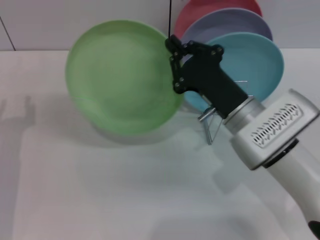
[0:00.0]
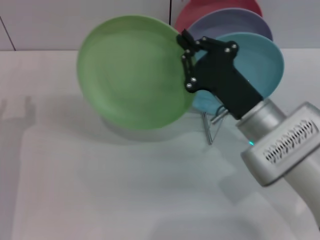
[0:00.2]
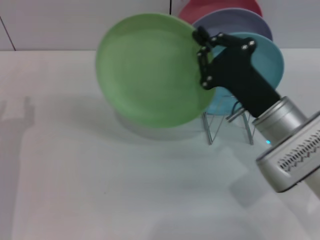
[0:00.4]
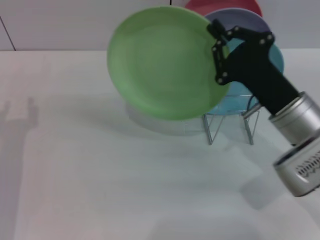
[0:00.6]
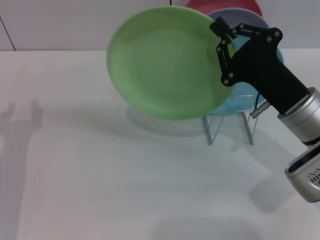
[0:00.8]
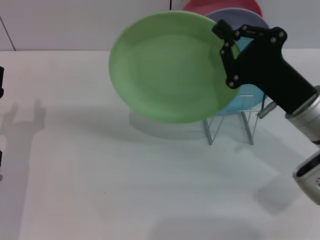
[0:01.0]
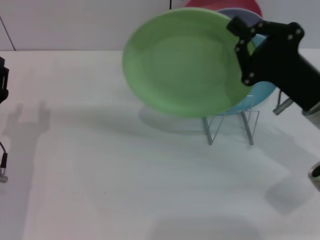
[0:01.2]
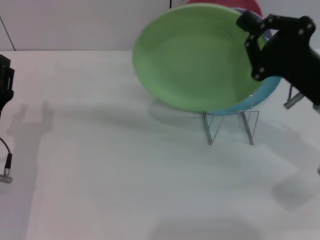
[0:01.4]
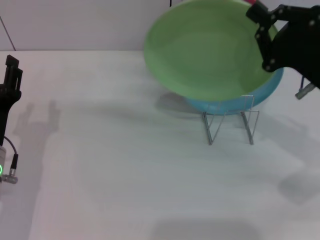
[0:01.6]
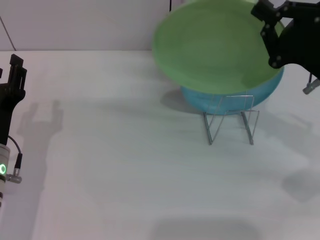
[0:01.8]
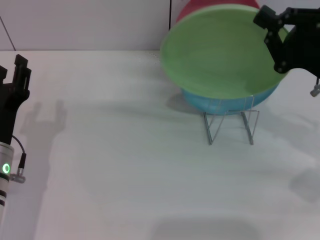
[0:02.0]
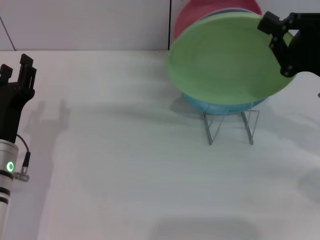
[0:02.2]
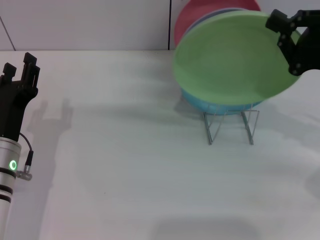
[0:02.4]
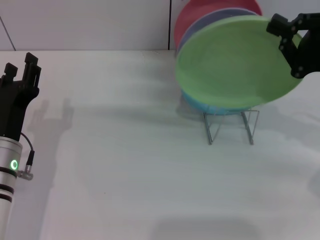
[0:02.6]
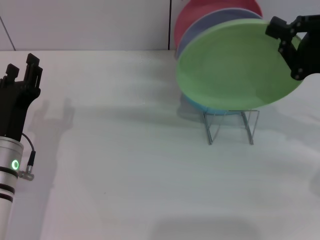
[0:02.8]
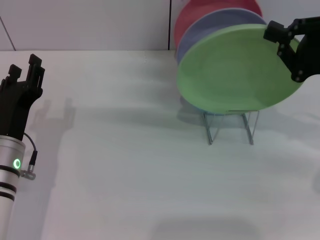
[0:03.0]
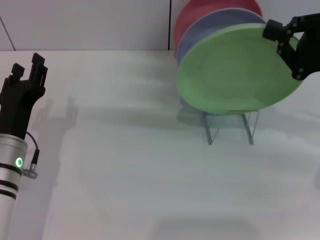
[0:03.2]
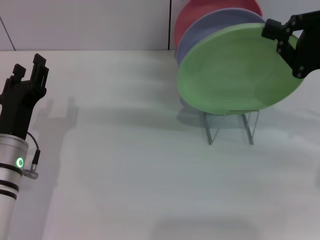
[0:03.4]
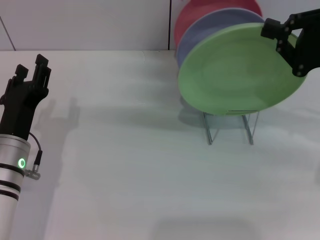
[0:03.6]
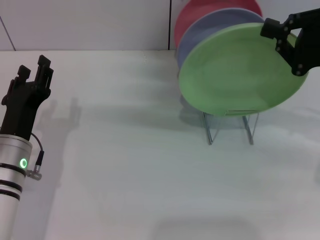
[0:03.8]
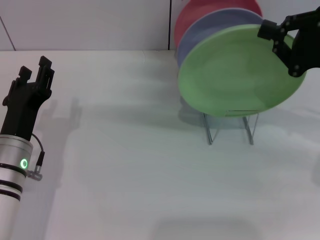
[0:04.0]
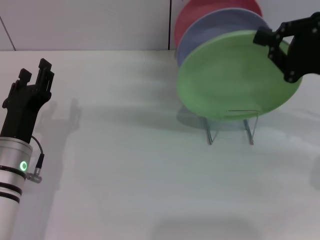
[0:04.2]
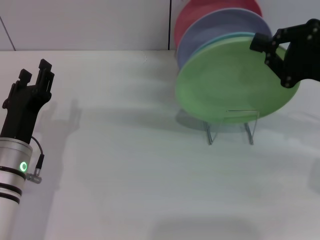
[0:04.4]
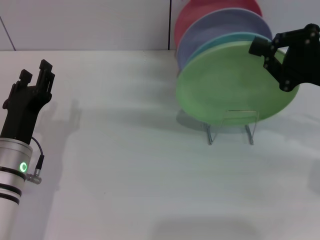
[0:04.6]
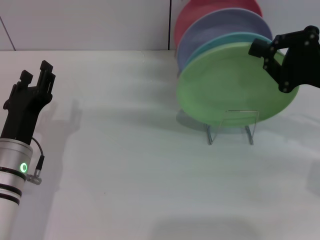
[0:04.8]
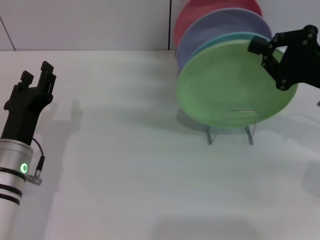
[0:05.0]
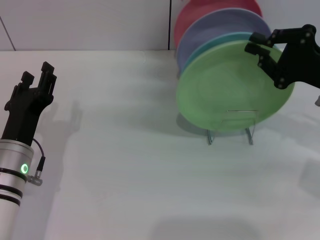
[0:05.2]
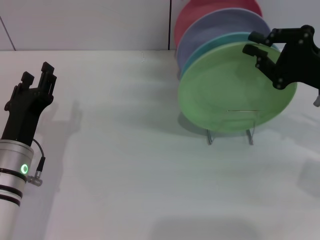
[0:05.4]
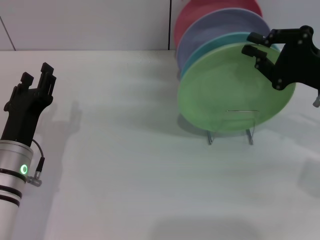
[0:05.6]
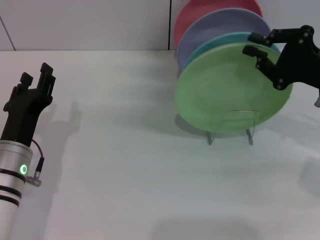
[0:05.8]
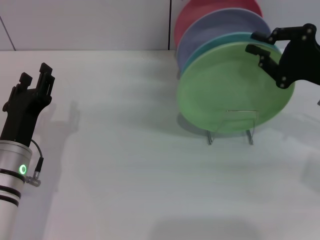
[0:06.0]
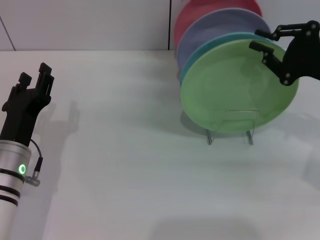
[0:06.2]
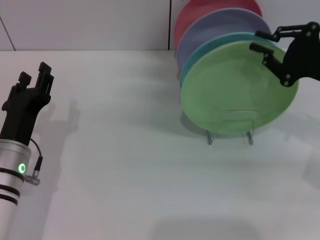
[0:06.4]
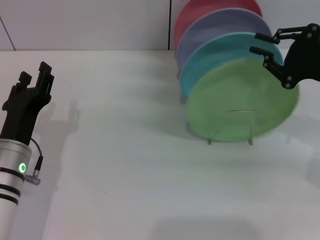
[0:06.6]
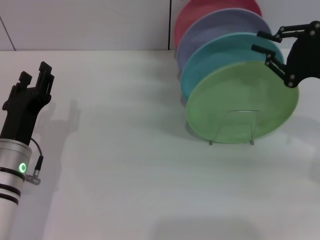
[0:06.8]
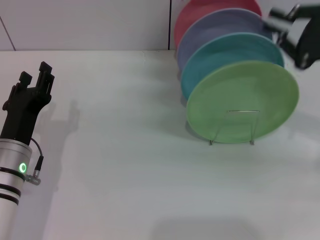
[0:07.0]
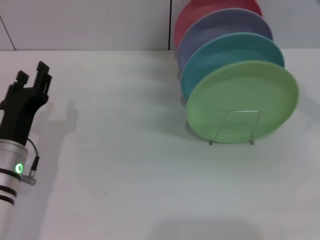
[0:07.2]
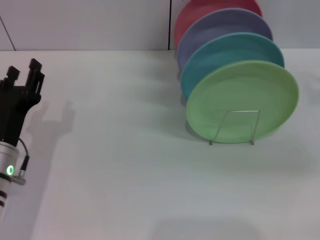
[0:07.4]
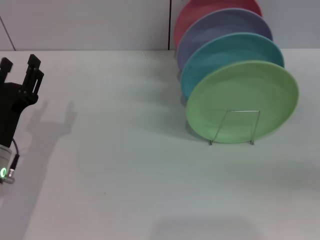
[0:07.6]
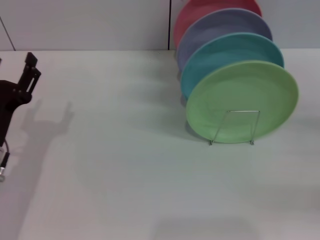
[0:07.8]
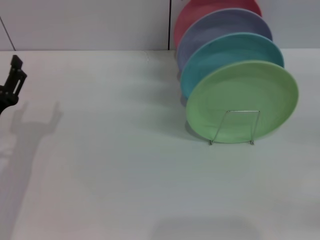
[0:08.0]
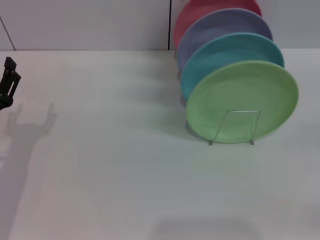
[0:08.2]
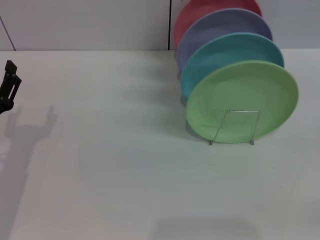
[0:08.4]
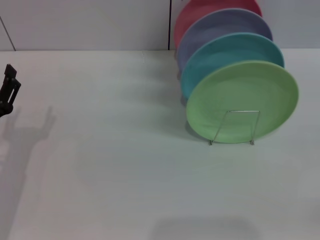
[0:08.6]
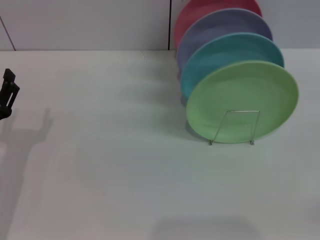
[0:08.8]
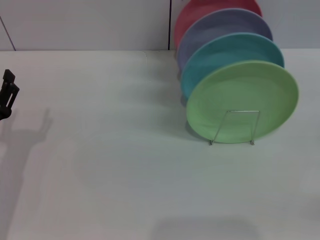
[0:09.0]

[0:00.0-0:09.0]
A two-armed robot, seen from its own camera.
Task of the whole recording: Grip the plate with one hand, pass it to the other, then set it on the shelf.
Step, 0:00.2 to 0:06.8: Place the plate on the shelf with the right gripper.
0:00.0 to 0:01.6: The right gripper shifts some 15 cm to the right and upward.
0:01.6 to 0:03.0: The right gripper ends up approximately 5 cm from where it was.
0:03.0 to 0:06.0: The grippers make only small movements.
0:06.0 to 0:07.6: The right gripper shifts approximately 10 cm to the right and backward.
0:07.6 to 0:09.0: The right gripper shifts about 10 cm downward, and opens.

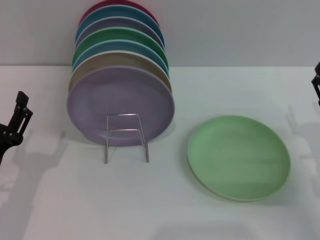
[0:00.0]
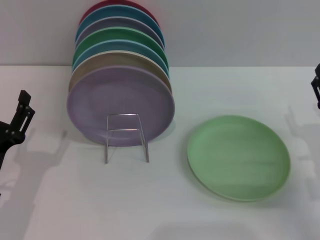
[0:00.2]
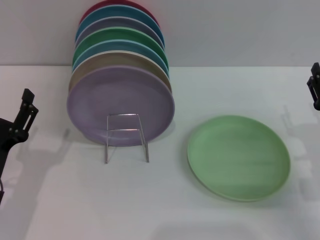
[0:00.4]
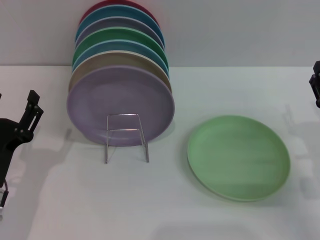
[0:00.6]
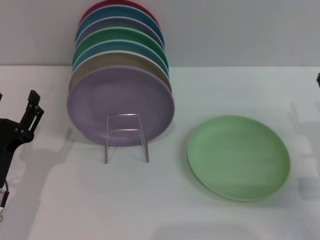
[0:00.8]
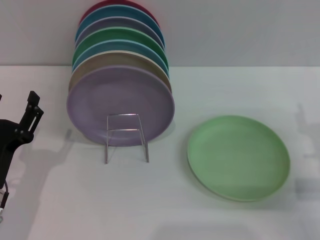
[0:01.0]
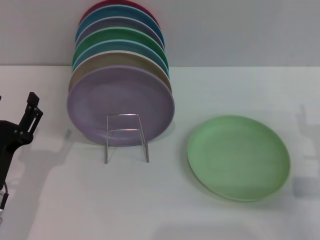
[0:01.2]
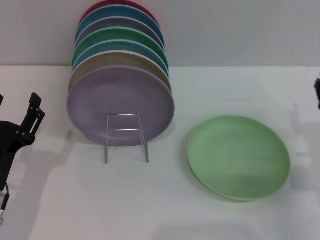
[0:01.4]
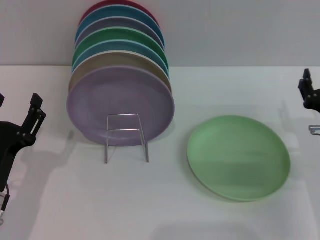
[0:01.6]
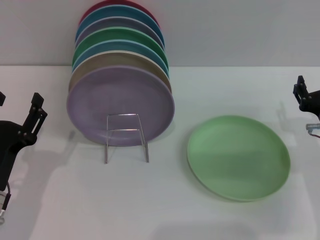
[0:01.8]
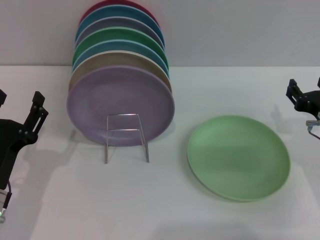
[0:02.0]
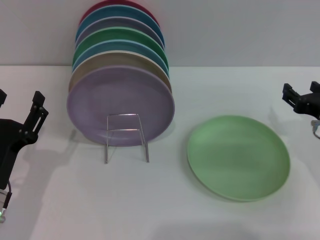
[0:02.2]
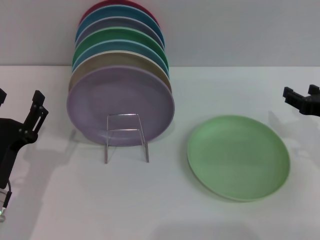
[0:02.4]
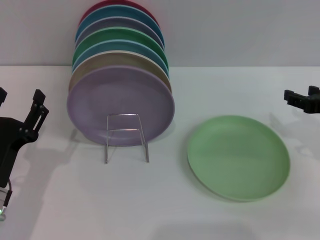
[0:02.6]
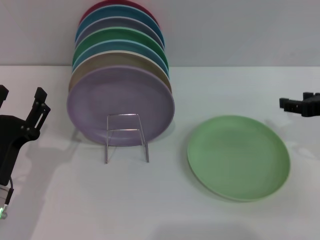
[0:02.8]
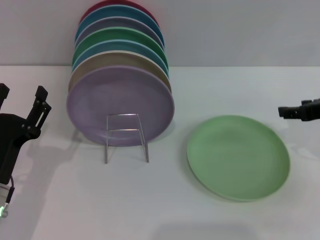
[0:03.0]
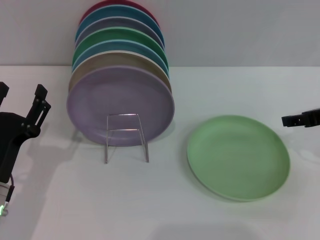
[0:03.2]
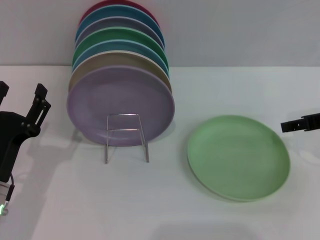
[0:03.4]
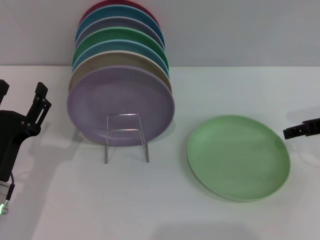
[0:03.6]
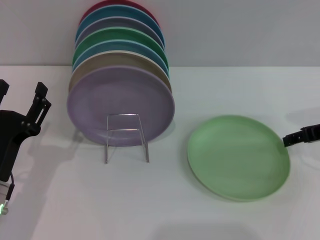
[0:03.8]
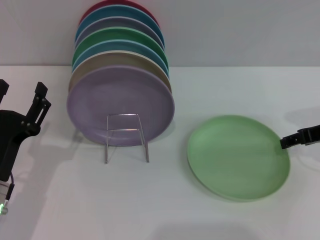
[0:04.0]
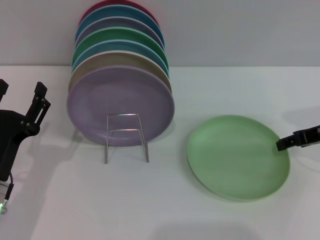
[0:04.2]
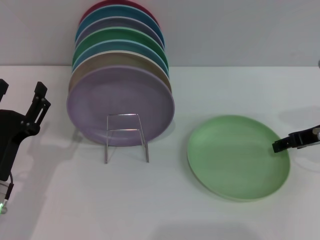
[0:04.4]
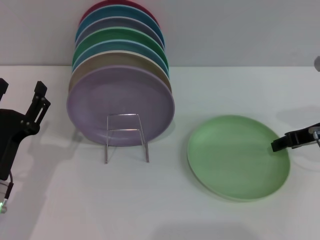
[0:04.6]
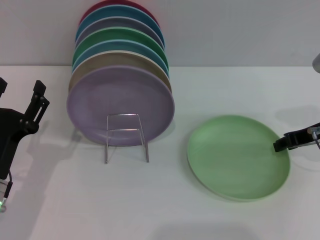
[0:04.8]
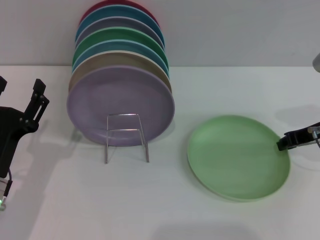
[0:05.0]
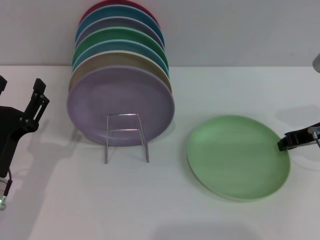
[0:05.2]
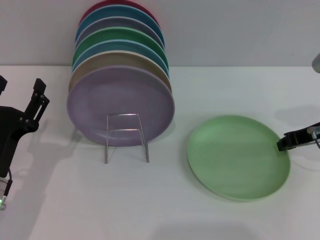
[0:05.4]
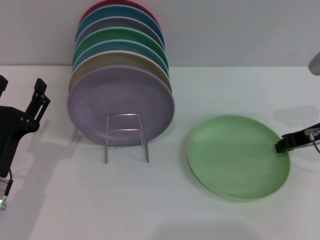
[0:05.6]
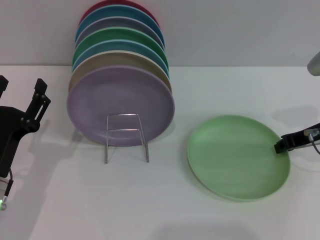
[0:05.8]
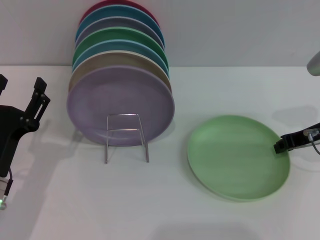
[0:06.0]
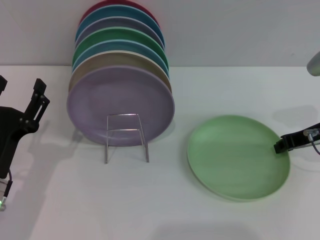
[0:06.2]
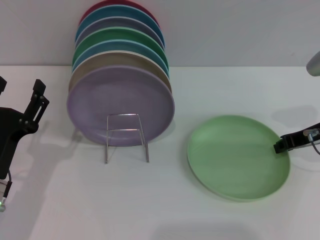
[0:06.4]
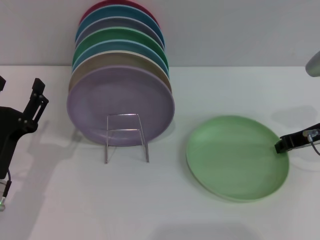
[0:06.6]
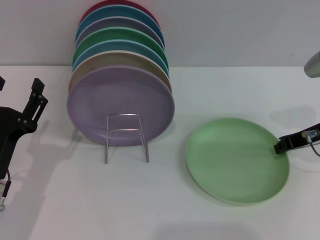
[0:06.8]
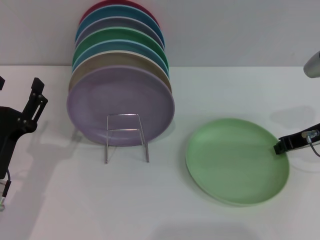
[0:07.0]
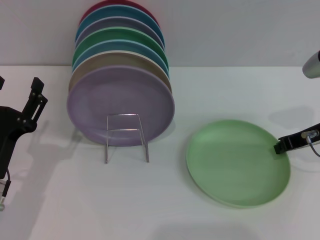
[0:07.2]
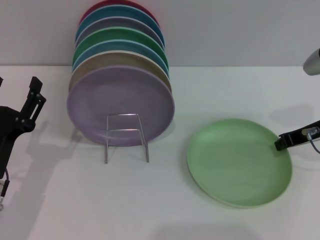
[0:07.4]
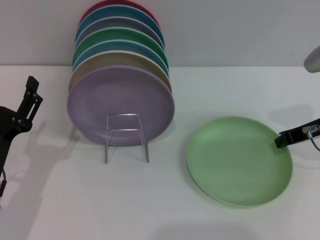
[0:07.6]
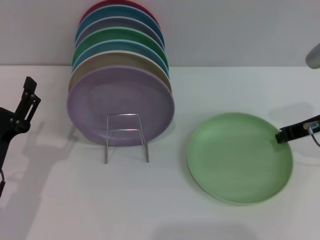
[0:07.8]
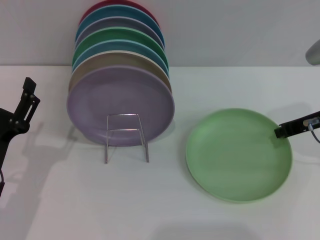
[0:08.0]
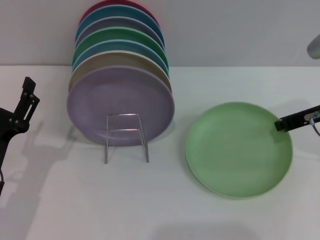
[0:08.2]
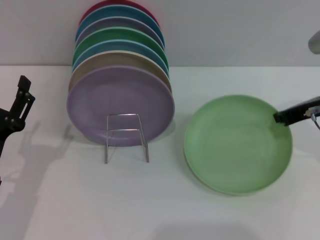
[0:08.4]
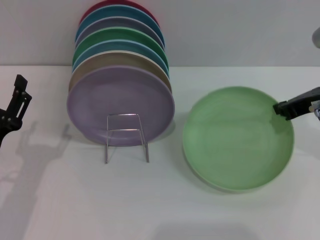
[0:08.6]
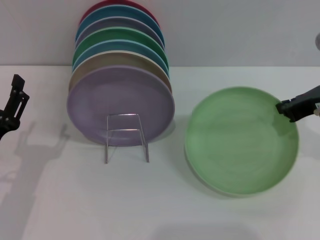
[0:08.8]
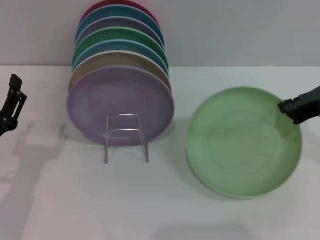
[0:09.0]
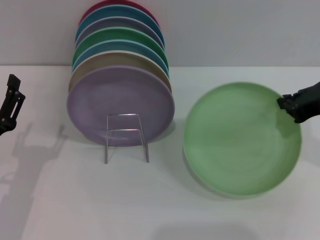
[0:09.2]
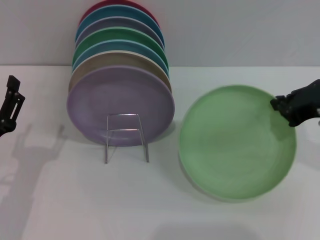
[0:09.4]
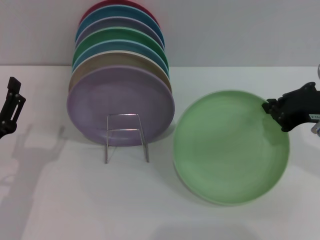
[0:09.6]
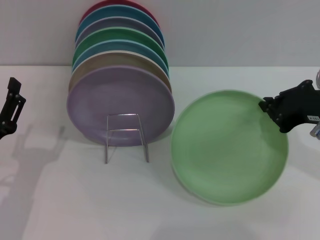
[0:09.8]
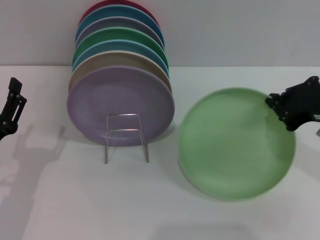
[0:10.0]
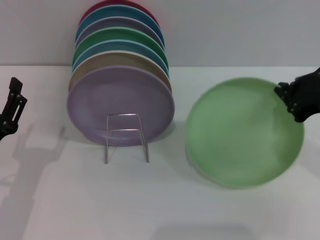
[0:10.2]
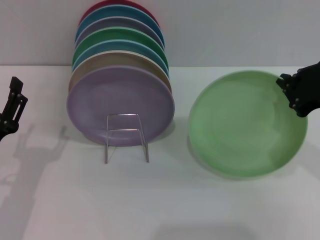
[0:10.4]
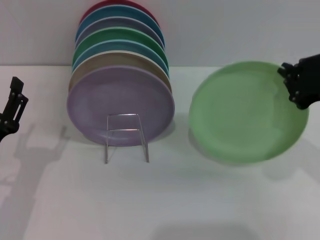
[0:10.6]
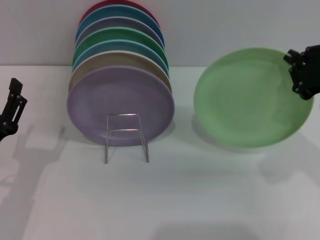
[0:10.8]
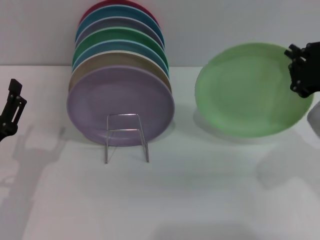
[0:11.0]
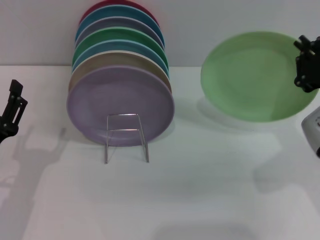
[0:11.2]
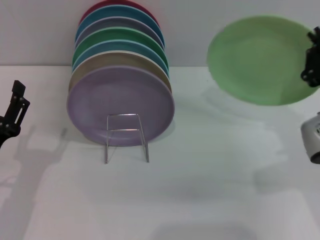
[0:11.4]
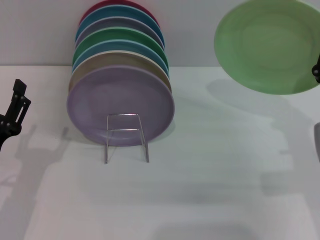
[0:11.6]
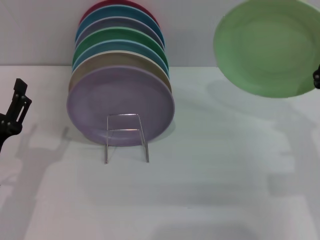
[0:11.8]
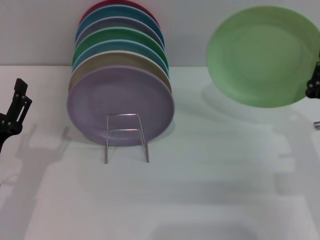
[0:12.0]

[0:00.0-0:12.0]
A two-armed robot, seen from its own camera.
Task of the whole recording: Grip the plate with one hand, pass it to the other, then set it on the shelf.
Step, 0:00.0 to 0:10.0: Pick up the plate with the right gripper.
0:01.6 to 0:03.0: The right gripper is displaced upward by approximately 10 cm.
0:04.4 to 0:06.0: The right gripper closes.
0:06.0 to 0:07.6: Both grippers stay about where they are.
0:07.6 to 0:09.0: The right gripper moves upward, about 5 cm.
0:10.4 to 0:12.0: The right gripper shifts approximately 10 cm downward.

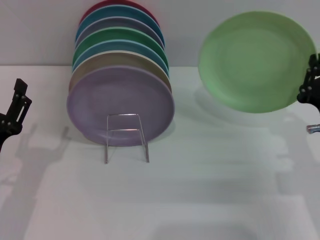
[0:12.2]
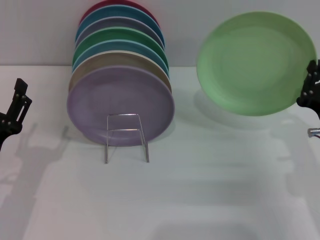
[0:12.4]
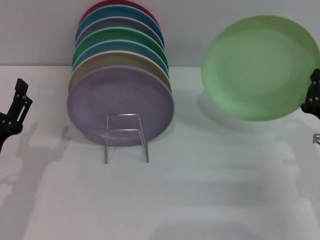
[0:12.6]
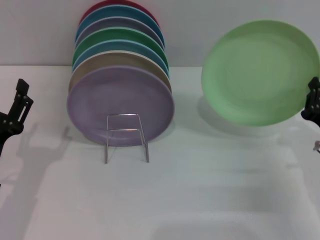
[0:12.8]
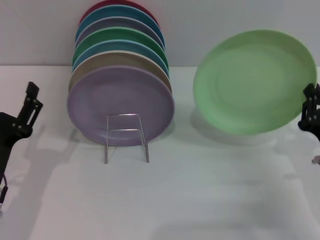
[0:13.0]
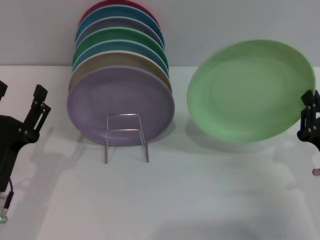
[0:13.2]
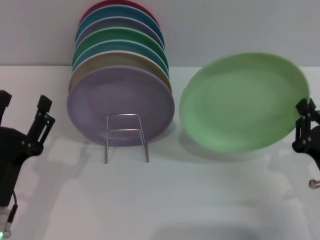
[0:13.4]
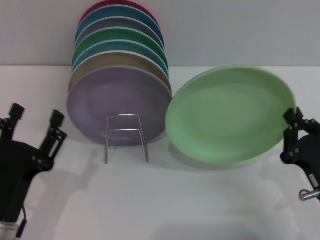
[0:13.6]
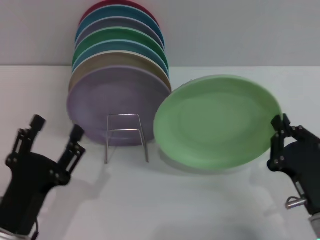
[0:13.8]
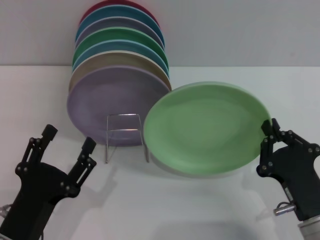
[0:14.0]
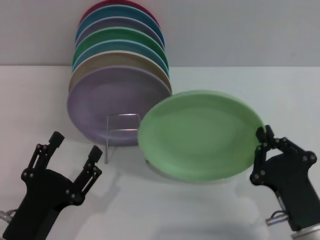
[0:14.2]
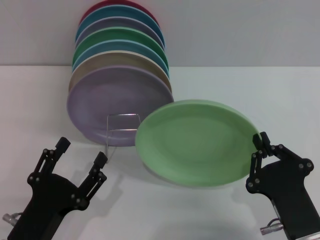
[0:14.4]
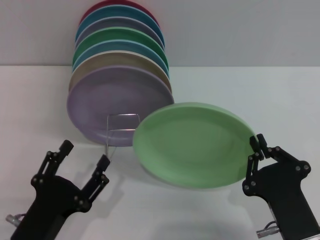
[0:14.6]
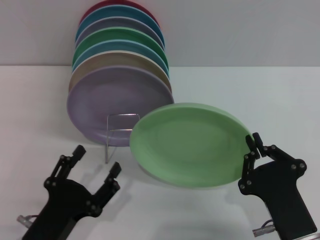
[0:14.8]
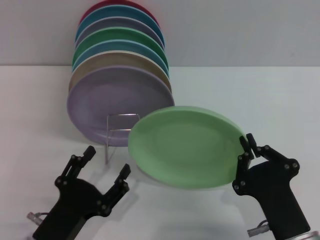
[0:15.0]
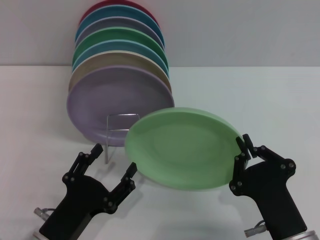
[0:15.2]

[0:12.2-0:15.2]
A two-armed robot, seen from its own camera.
Task of the whole recording: Grip the plate with one hand, pass it to the other, then set it on the shelf.
0:12.2 to 0:13.8: The left gripper moves backward, some 5 cm, while the right gripper is displaced backward and downward by about 10 cm.
0:13.8 to 0:15.2: The right gripper moves to the left, about 5 cm.
